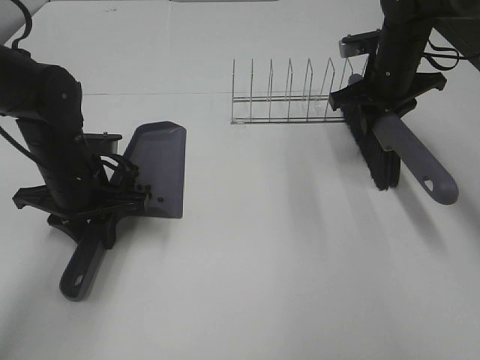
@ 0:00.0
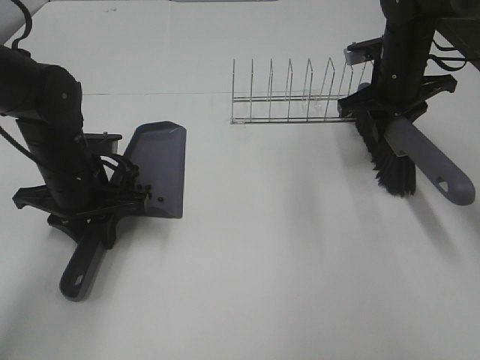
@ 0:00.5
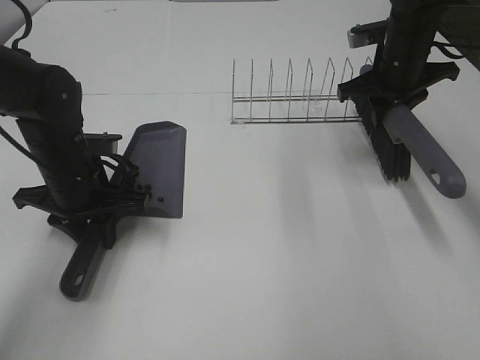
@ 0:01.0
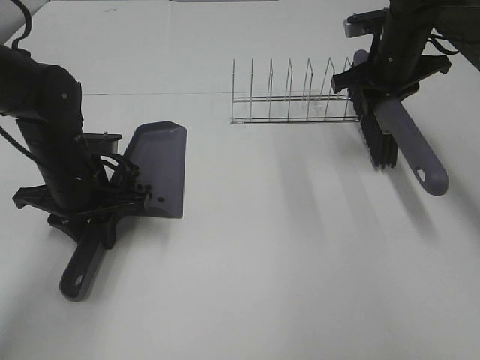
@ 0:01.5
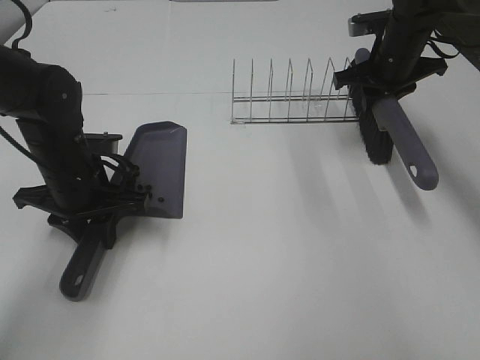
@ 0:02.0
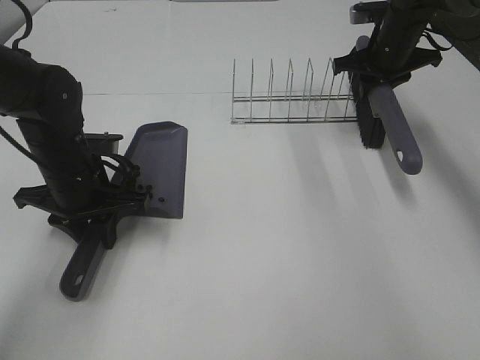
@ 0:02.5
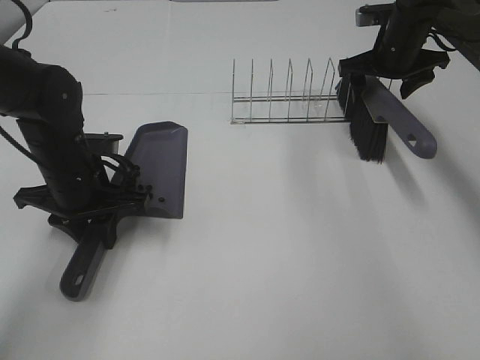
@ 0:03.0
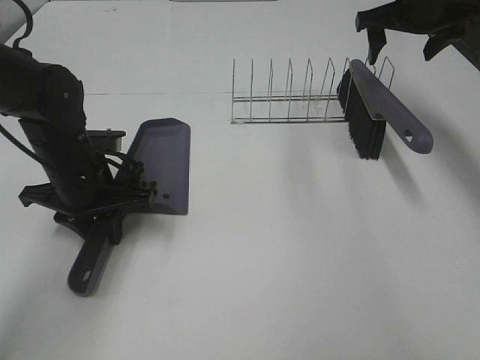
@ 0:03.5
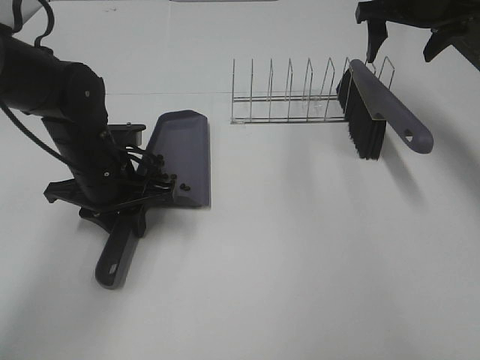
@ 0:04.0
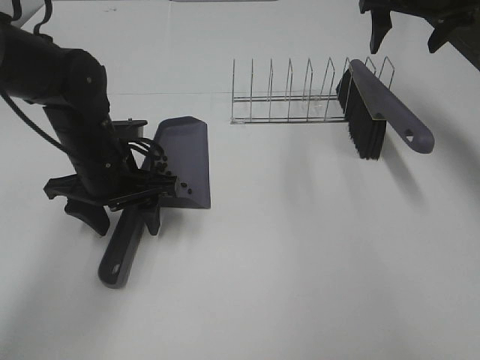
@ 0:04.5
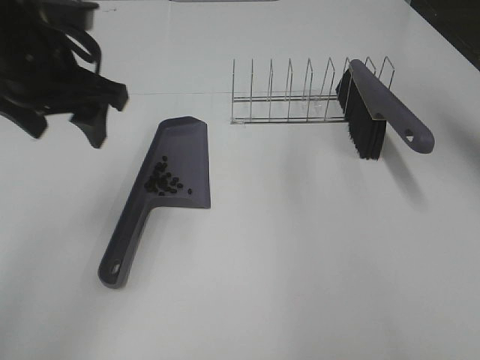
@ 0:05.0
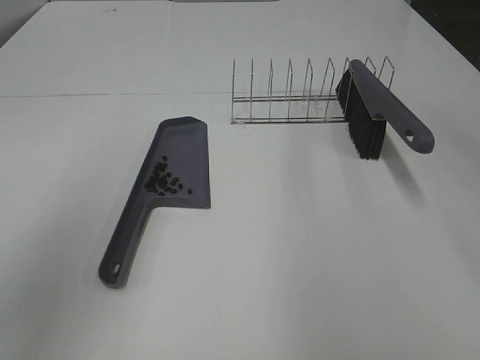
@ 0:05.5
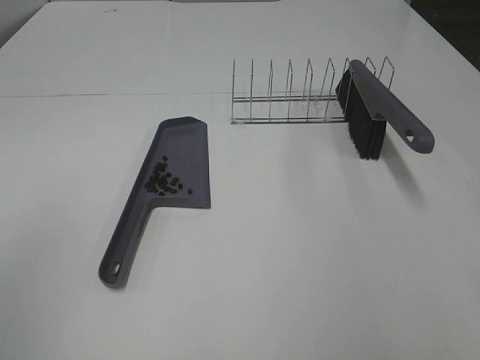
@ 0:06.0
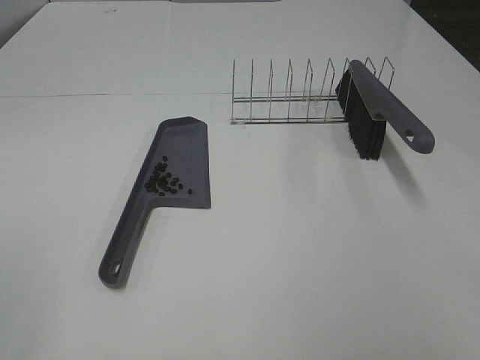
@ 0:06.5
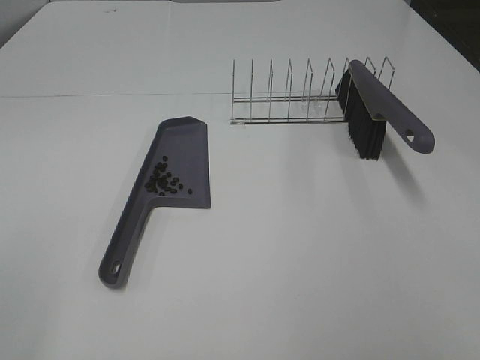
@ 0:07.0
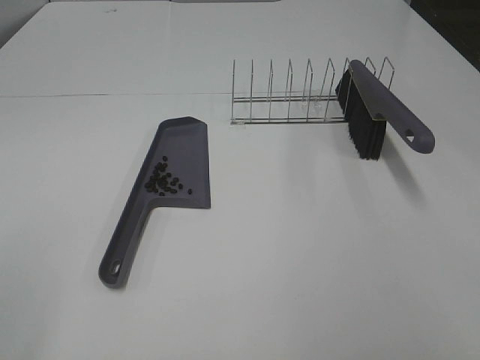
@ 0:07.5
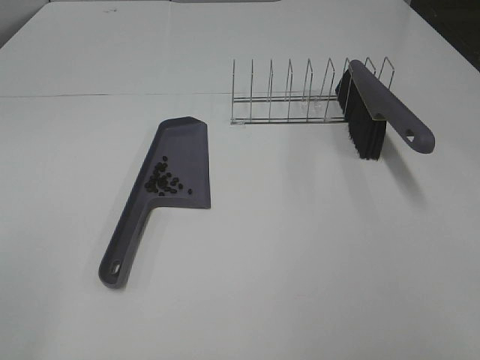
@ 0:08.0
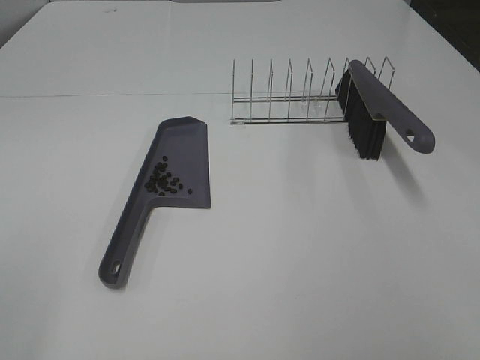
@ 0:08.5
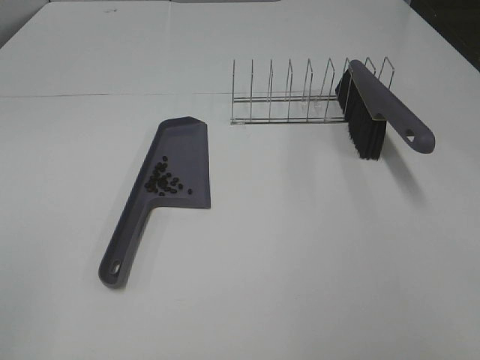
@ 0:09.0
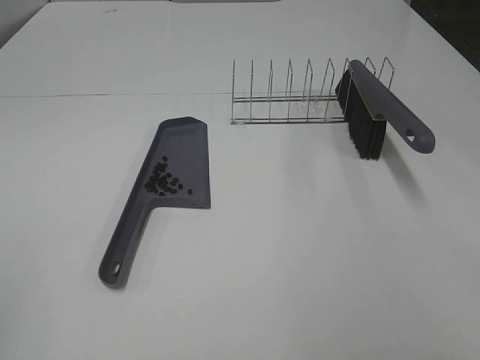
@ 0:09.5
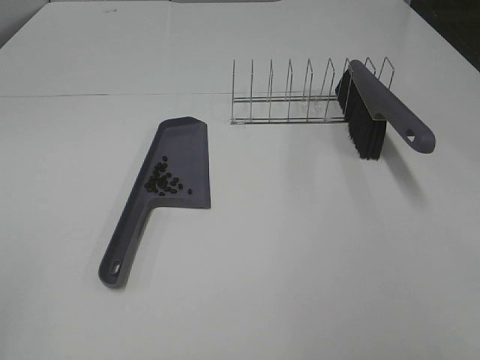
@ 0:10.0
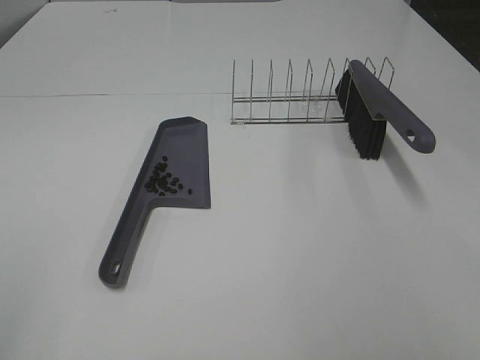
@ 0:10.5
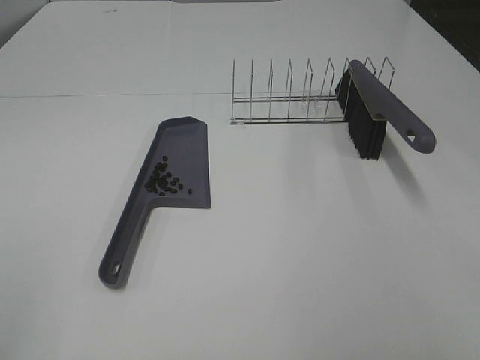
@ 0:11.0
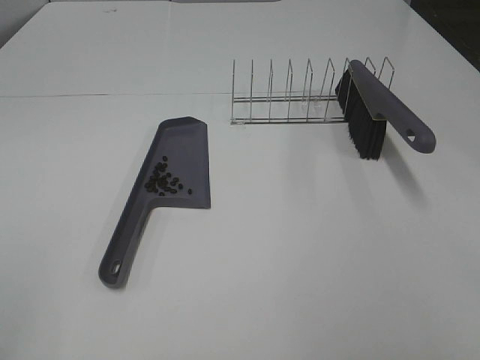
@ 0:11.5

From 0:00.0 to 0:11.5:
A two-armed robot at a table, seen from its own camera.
Task of the whole recording: Sweep Coffee Bean.
Step, from 0:00.0 to 0:02.5: Right hand:place the broom on the rack.
Step, from 0:03.0 to 0:04.5: Left hand:place the dustpan on the table.
From 0:00.0 to 0:02.0: The grippers stay close to where they were, moving slightly.
From 0:02.0 to 0:04.0: The right gripper goes some 10 cm upward, and opens its fingers.
From 0:04.0 to 0:06.0: The right gripper is displaced backward by approximately 40 cm. Meanwhile the left gripper shifts about 40 cm backward, upward and to the left, and opens.
